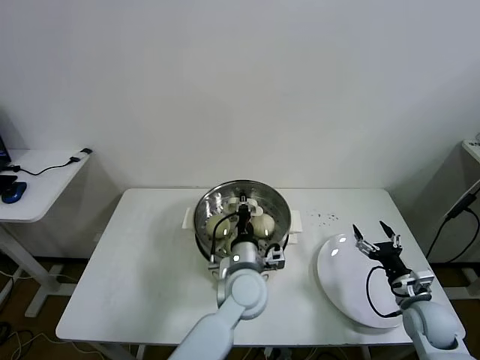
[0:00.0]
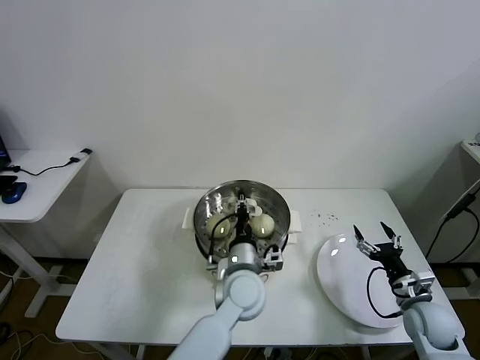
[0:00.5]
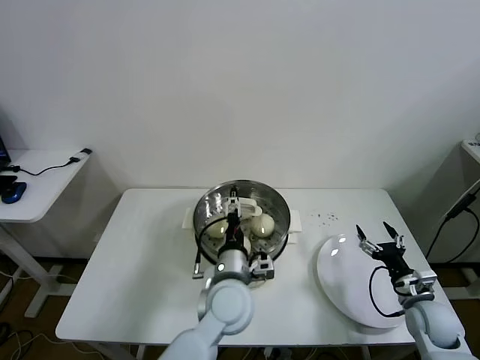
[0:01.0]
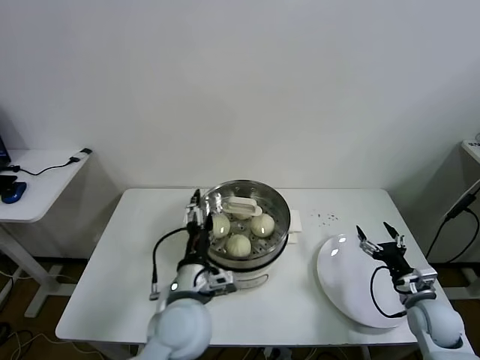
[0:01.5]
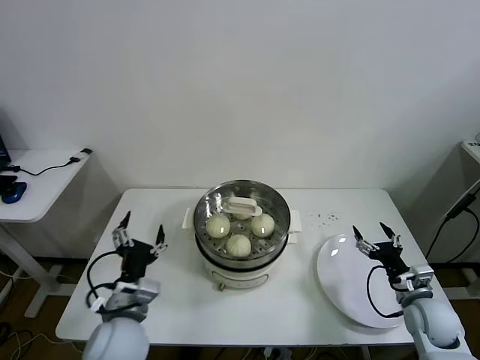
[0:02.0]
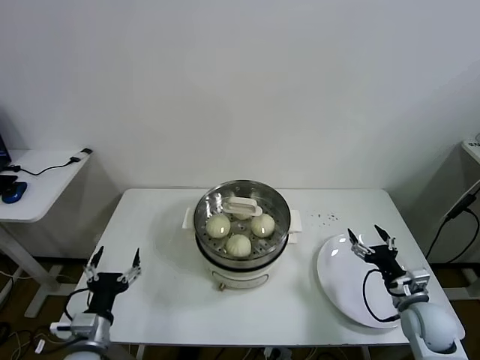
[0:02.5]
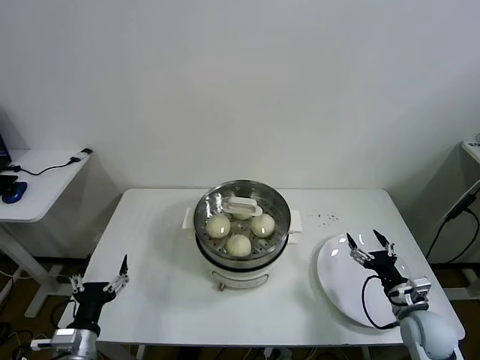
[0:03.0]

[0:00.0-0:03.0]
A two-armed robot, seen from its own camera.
Task of the whole recording: take steamed baozi put them in steamer then cover it.
0:00.0 to 0:01.5: The left gripper travels to the left and backward by roughly 10 cm, and opens up.
0:01.5 to 0:03.0: The left gripper shifts about 25 cm to the left and downward.
